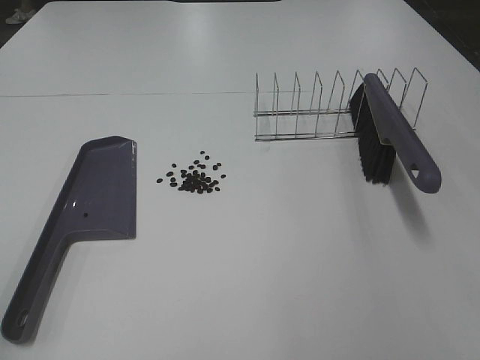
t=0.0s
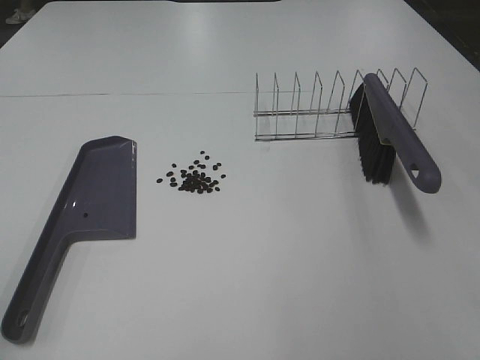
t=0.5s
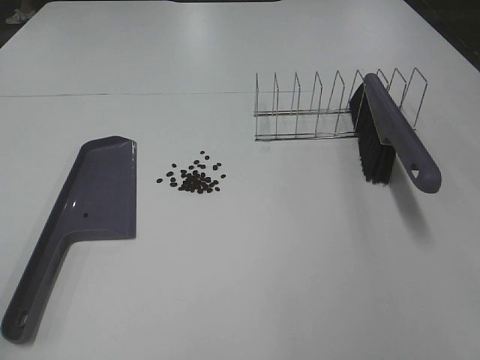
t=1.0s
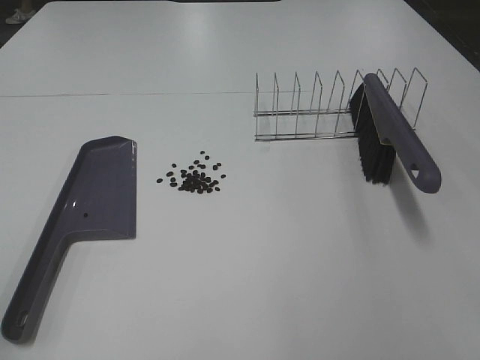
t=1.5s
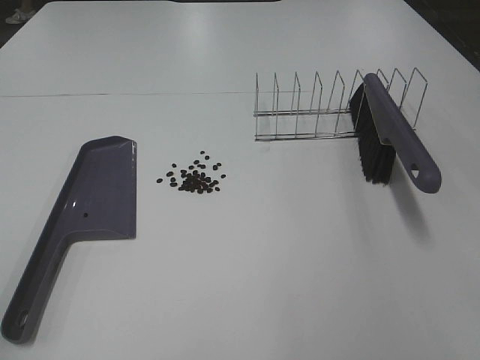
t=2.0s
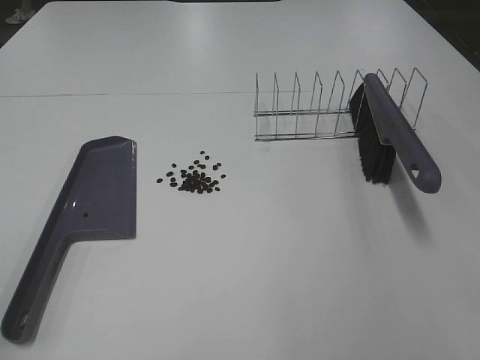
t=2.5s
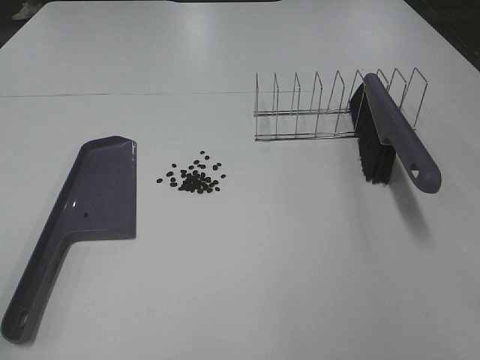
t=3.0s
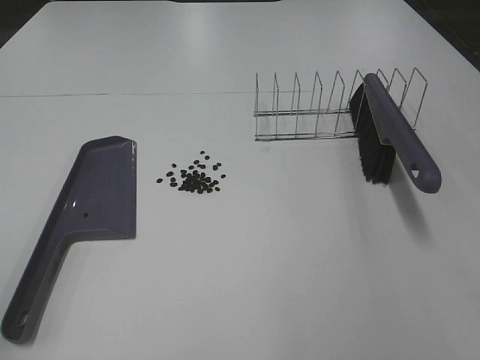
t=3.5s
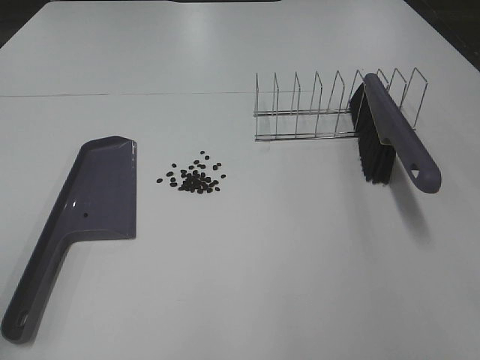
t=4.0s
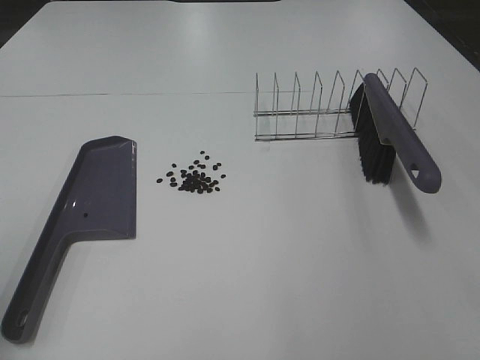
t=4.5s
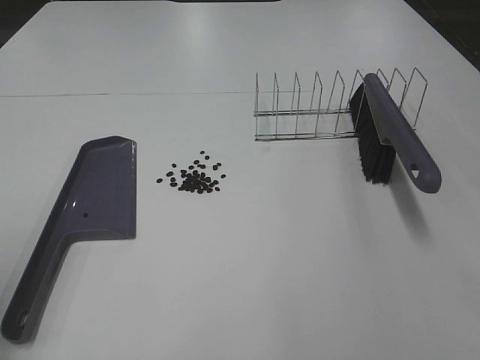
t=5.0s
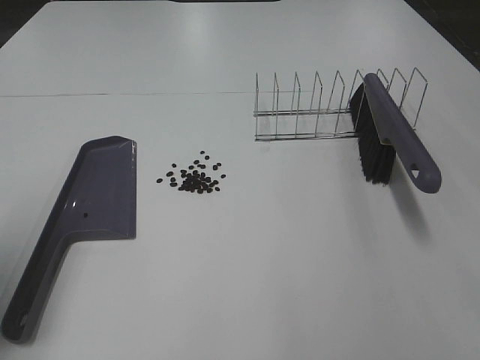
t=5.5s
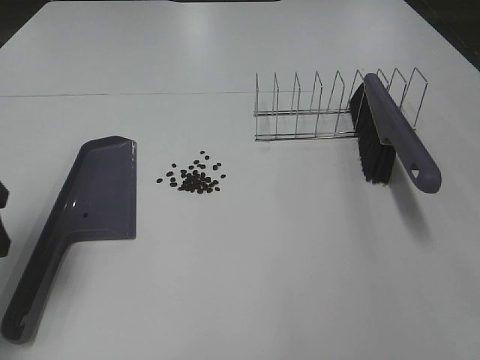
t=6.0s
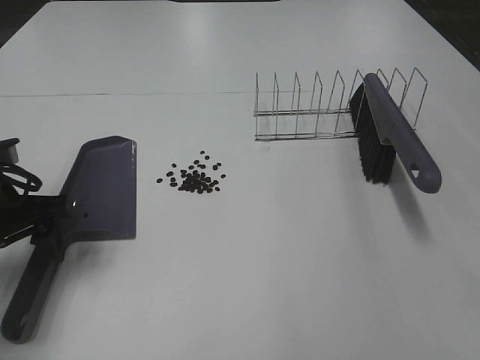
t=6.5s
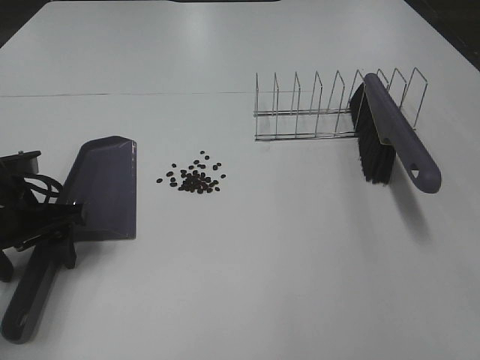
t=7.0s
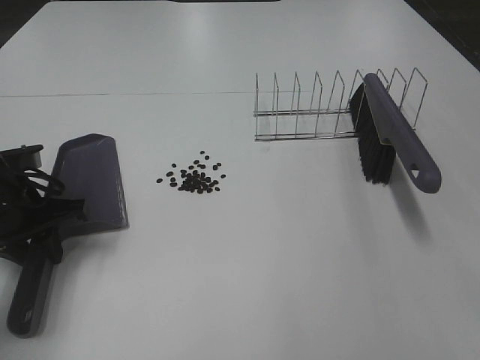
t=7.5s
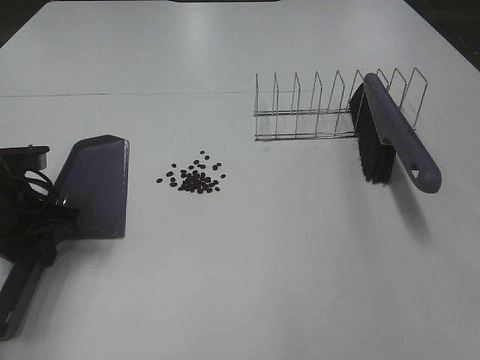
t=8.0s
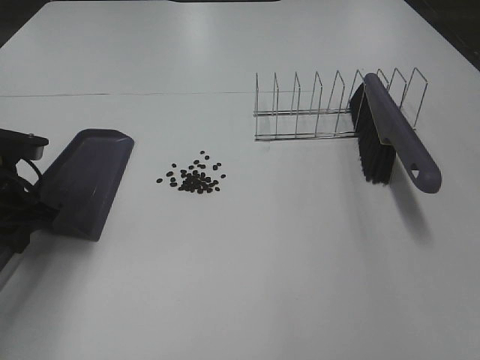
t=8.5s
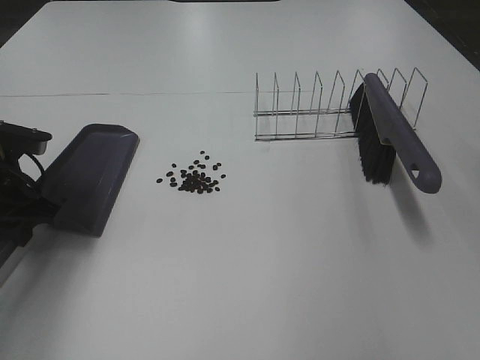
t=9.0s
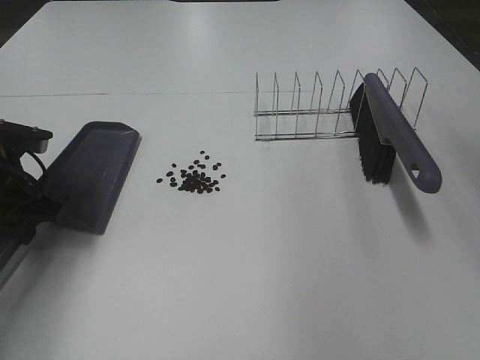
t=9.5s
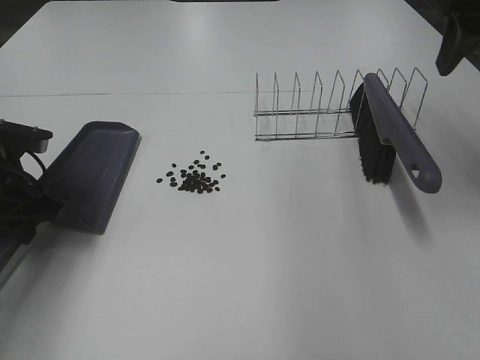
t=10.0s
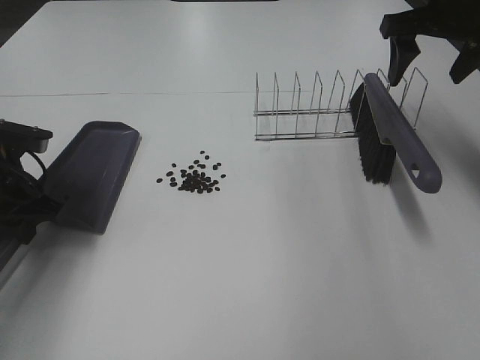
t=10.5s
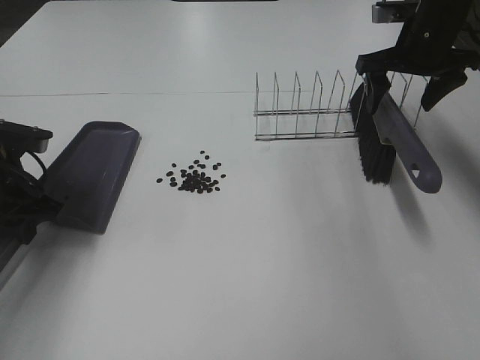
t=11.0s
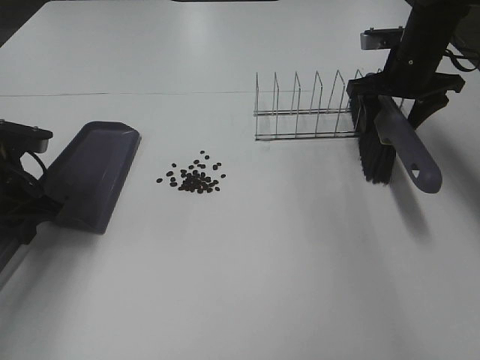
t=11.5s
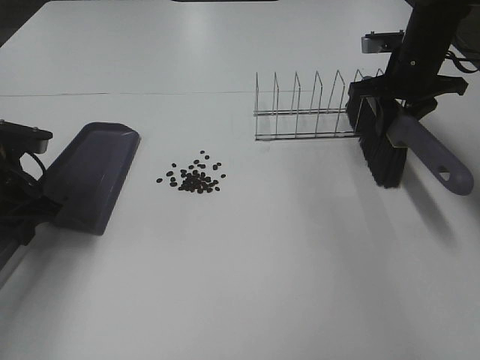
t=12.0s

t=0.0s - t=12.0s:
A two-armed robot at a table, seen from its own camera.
Task of the whole recording: Sweep Coffee Bean.
Step, t=0.0s - t=7.5s: Left hand: grab the dustpan.
Step, t=8.5s - t=11.5s: Right hand:grab the broom.
t=0.0s - t=2.0s: Neither gripper changes place.
t=4.0s - t=6.0s: The left gripper heads forward and downward, covering approximately 20 cm.
t=6.0s - t=8.0s: The left gripper moves downward and forward, some 10 cm, and closes.
t=8.0s - t=10.0s: The right gripper is displaced forward by approximately 35 cm.
t=10.0s - t=12.0s: The right gripper travels downward and forward by roughly 20 cm, and closes up.

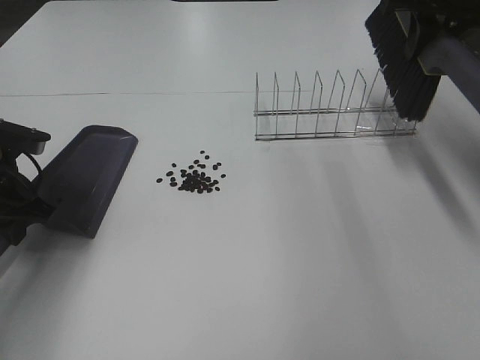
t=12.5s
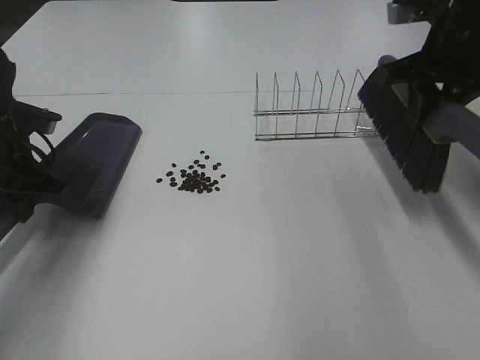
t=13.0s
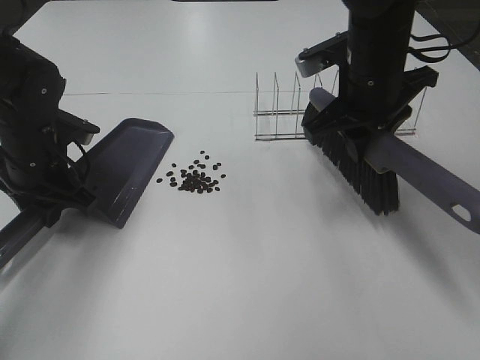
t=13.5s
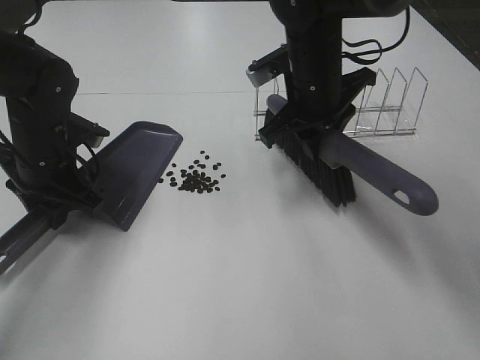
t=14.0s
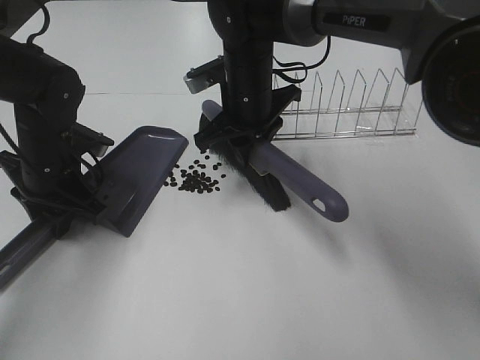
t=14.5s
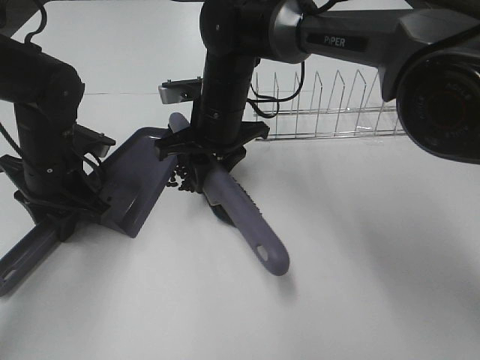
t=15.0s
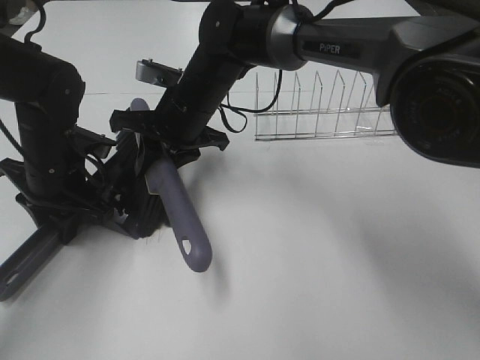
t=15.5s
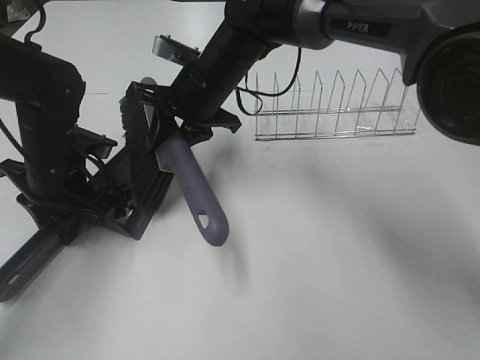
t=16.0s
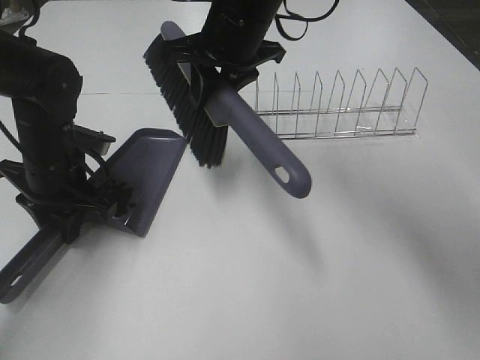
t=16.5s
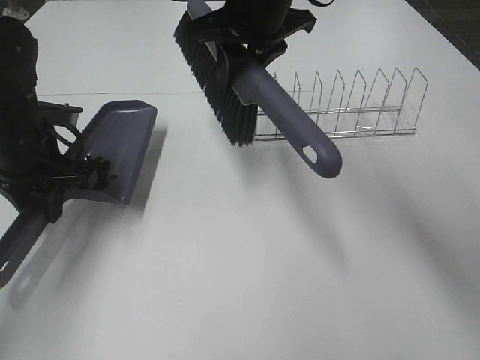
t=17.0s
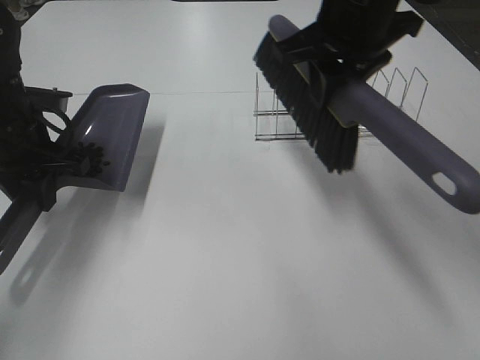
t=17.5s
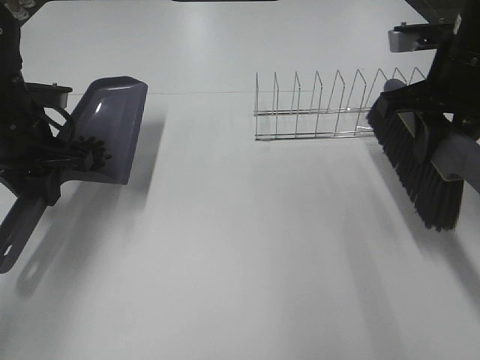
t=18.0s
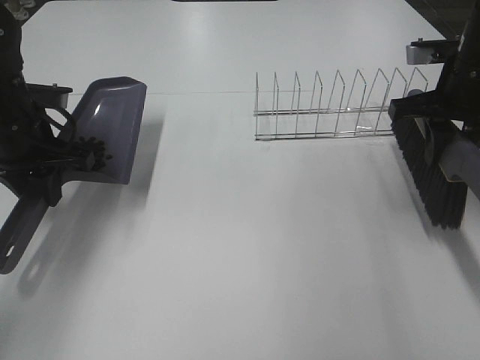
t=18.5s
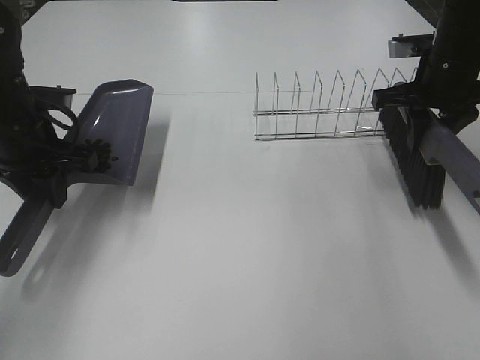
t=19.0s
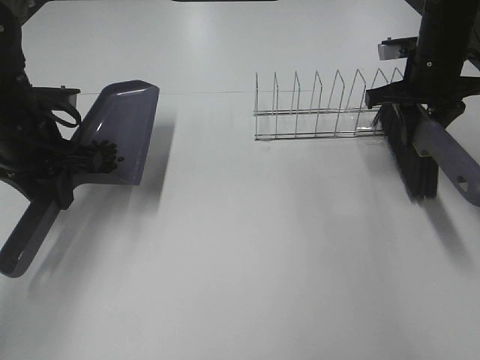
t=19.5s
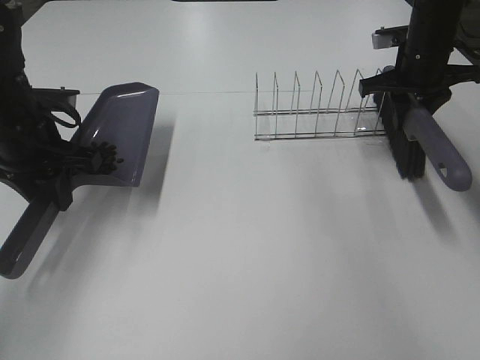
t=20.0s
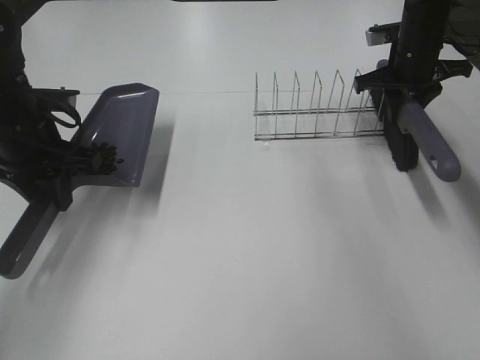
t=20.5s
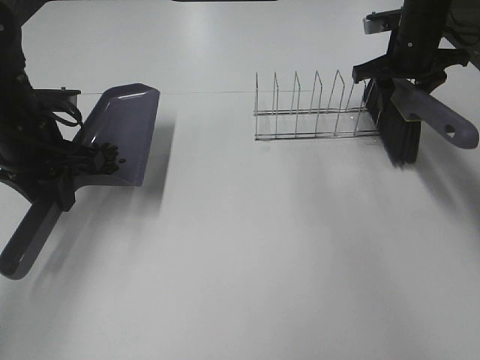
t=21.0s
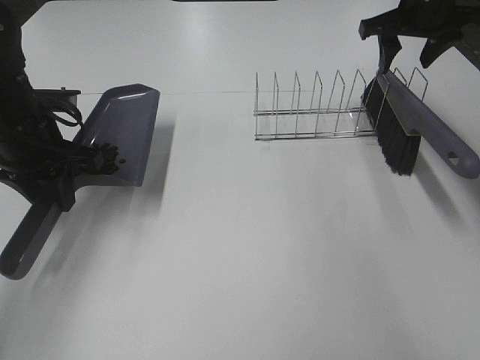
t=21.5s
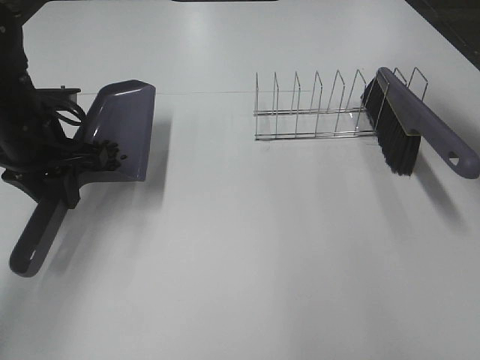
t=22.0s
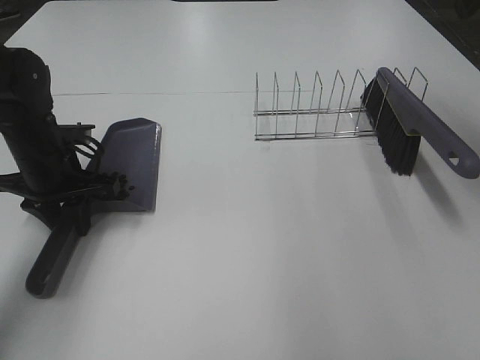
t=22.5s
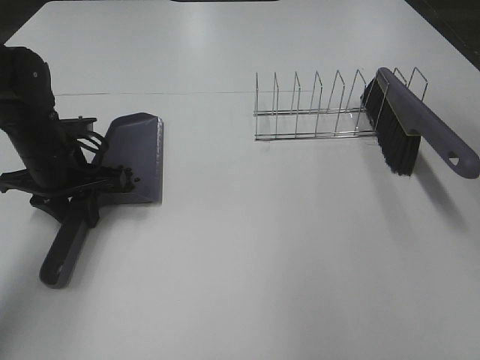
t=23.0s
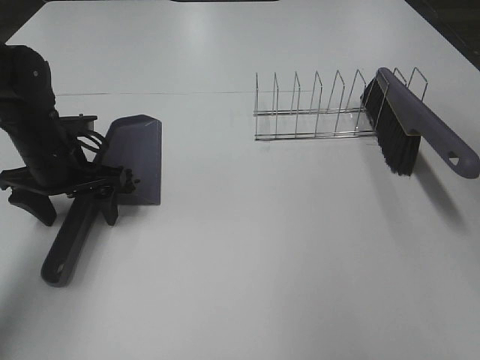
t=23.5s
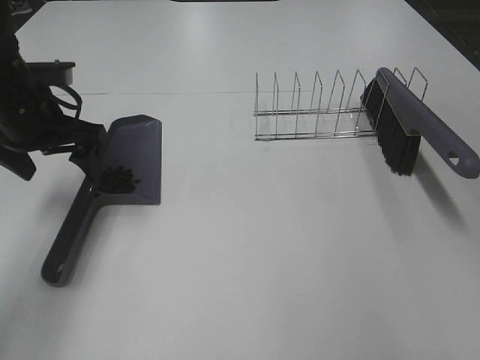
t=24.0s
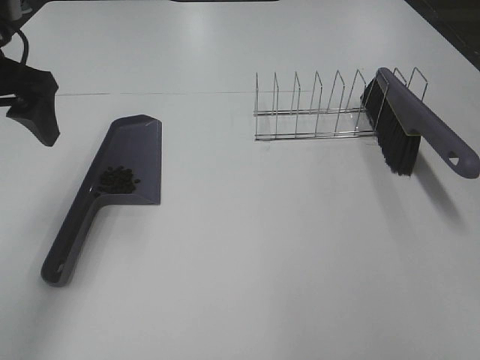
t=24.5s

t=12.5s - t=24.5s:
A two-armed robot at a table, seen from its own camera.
Task of the whole recording: Sweep Coffee Bean.
Step, t=12.5s - t=15.5s: Right hand:sweep the coffee beans into the dustpan.
Step, t=16.0s - t=21.0s: Right hand:place the broom on the rack.
Step, t=21.5s - t=23.0s: Left hand:place the dustpan on the table.
t=12.5s - t=14.5s: The right gripper goes some 30 cm to the left and downward. Meanwhile the left gripper shifts some 5 cm to the right.
t=14.5s - t=16.5s: The right gripper is displaced upward by approximately 10 cm.
t=16.5s - t=18.5s: The left gripper ends up approximately 5 cm from where it was. Meanwhile the right gripper travels to the right by some 25 cm.
t=18.5s - t=20.5s: The right gripper shifts some 15 cm forward.
t=20.5s - t=22.5s: The right gripper shifts roughly 30 cm upward and backward, and opens up. The left gripper heads downward, covering roughly 5 cm.
t=22.5s - t=24.5s: The left gripper travels upward by about 15 cm, and opens its fingers.

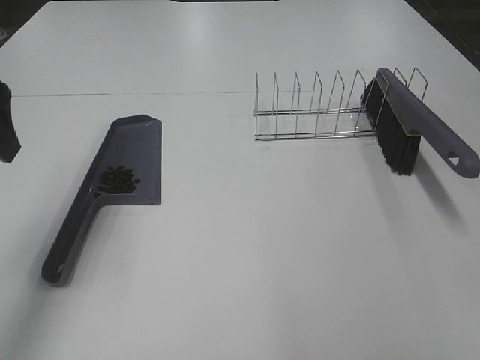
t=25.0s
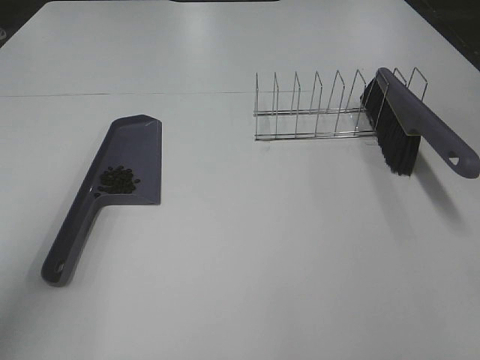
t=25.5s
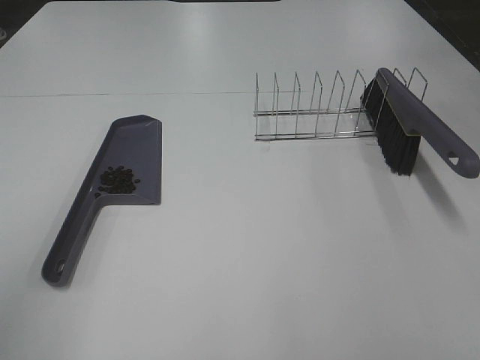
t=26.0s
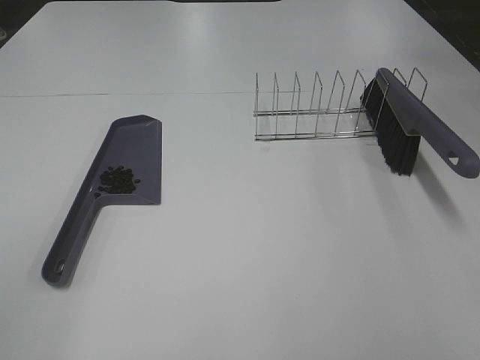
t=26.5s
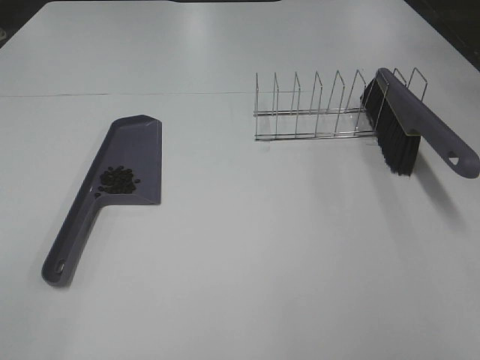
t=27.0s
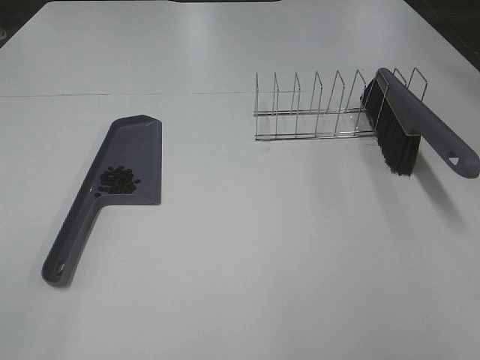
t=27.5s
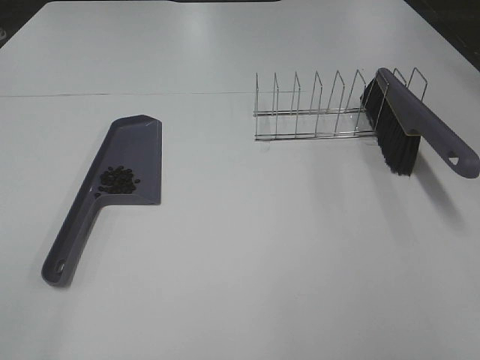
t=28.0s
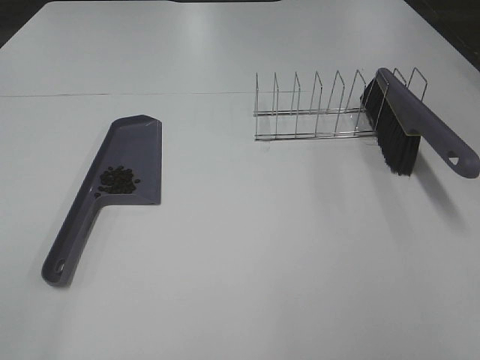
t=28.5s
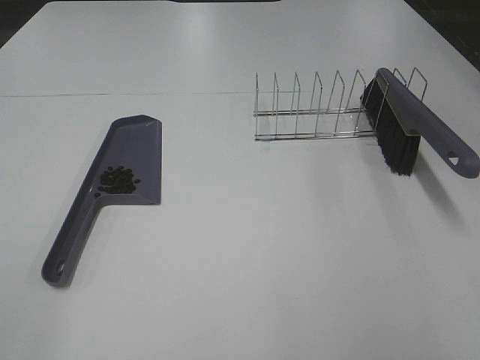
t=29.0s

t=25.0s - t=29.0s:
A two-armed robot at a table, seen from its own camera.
Task of the whole recording: Sweep Coffee Bean.
t=25.0s - t=27.0s: The left gripper goes some 25 cm backward.
